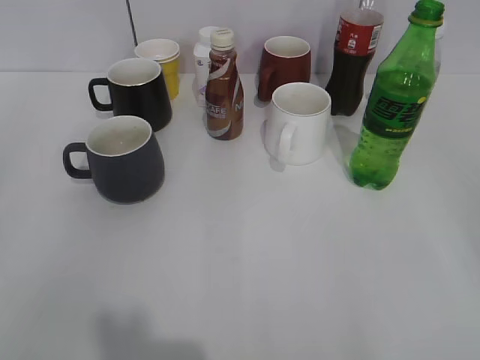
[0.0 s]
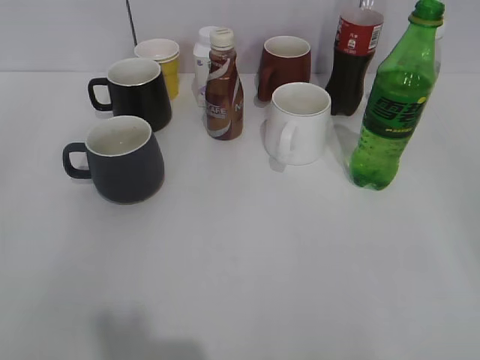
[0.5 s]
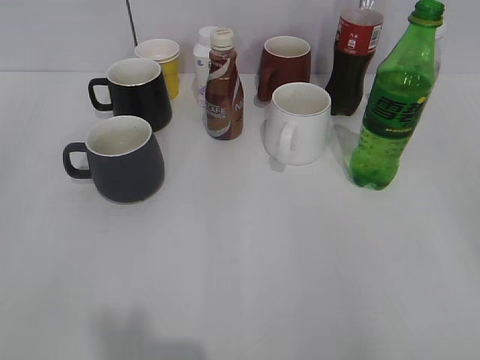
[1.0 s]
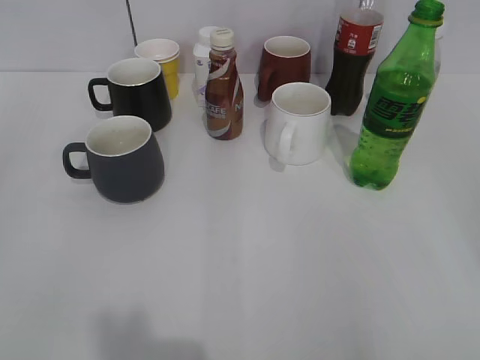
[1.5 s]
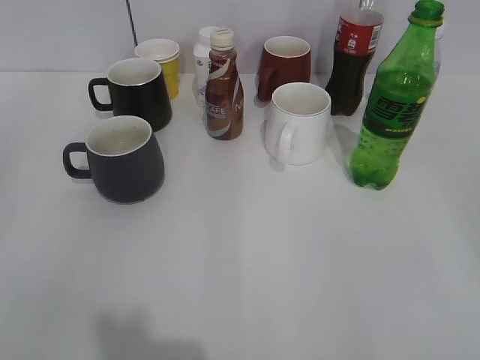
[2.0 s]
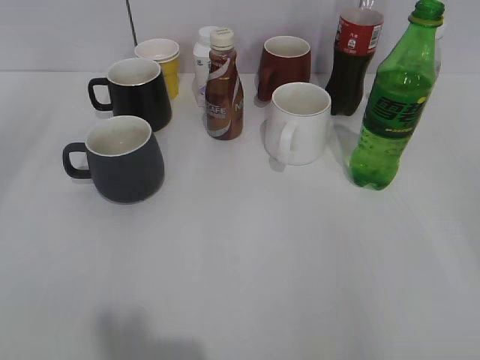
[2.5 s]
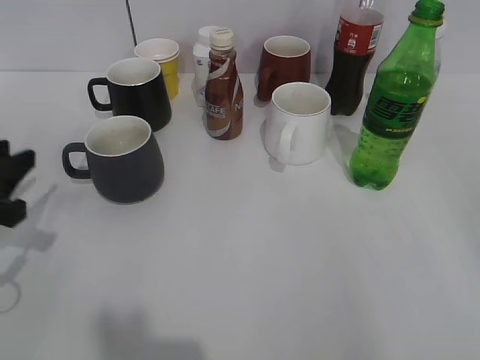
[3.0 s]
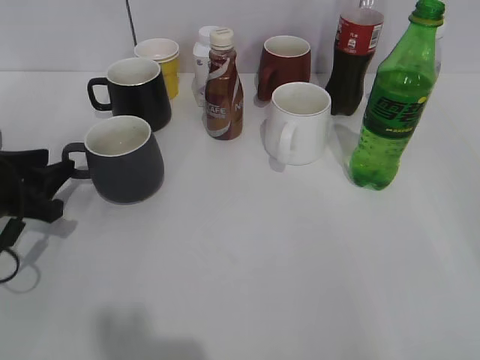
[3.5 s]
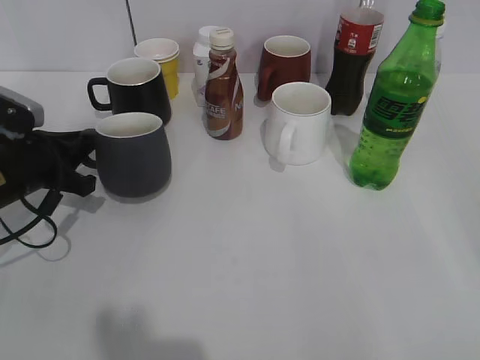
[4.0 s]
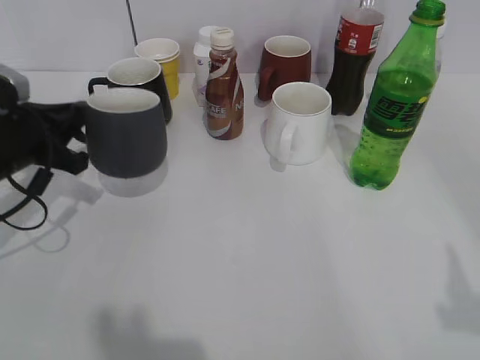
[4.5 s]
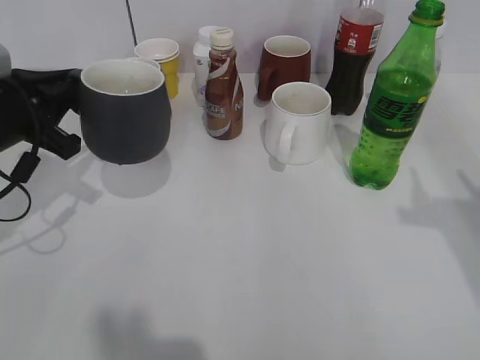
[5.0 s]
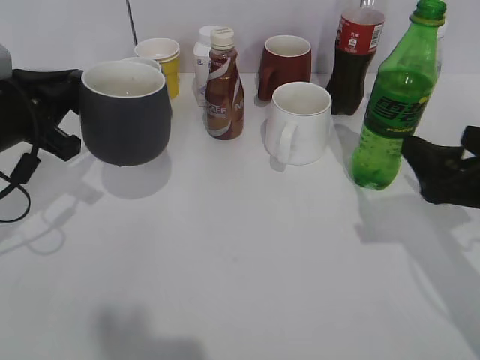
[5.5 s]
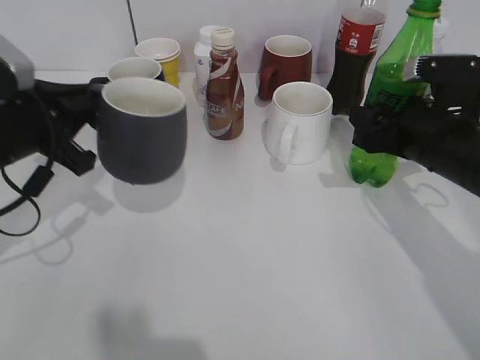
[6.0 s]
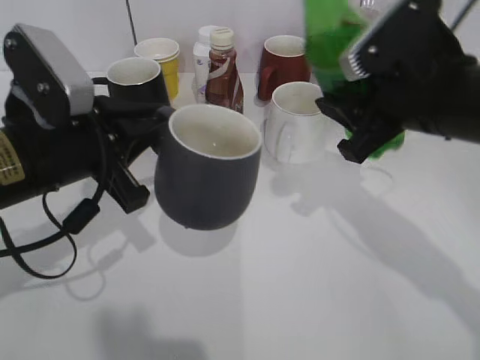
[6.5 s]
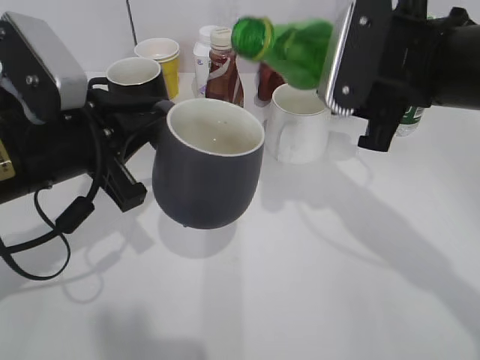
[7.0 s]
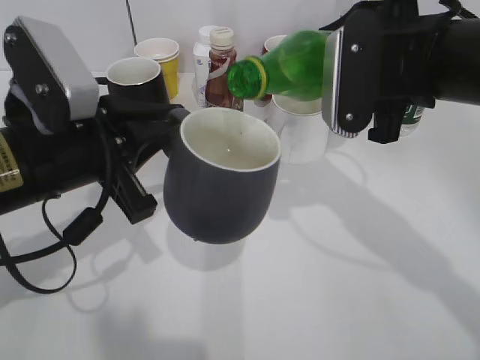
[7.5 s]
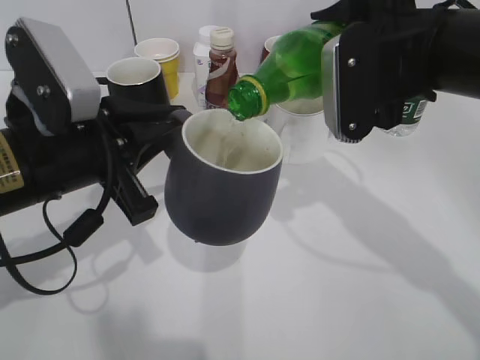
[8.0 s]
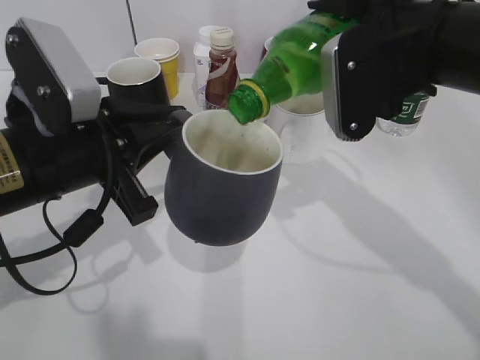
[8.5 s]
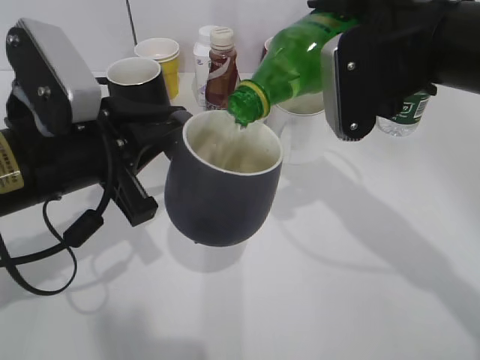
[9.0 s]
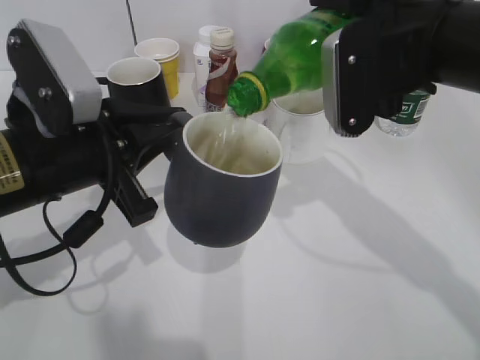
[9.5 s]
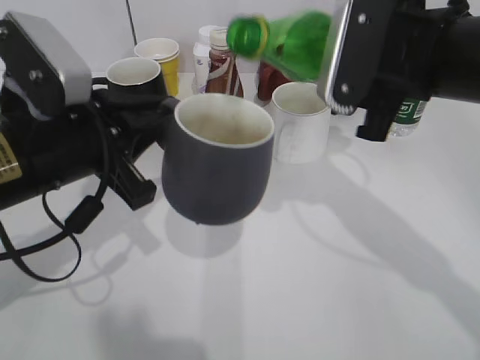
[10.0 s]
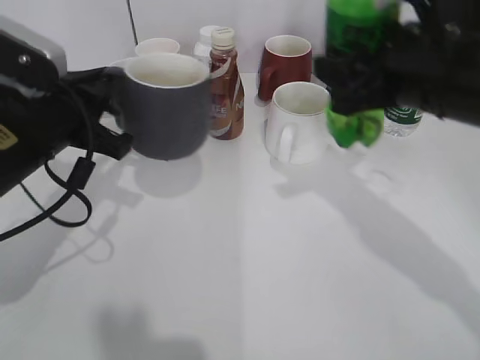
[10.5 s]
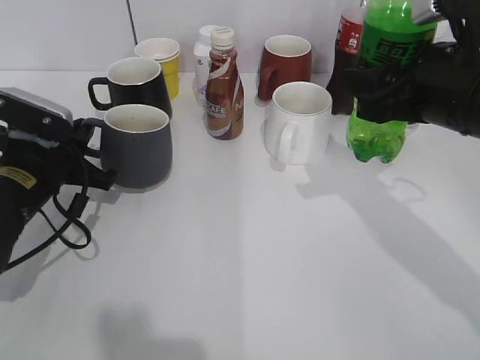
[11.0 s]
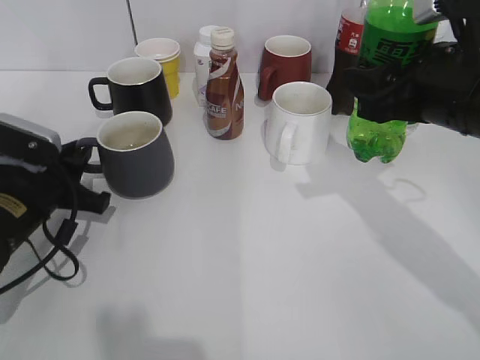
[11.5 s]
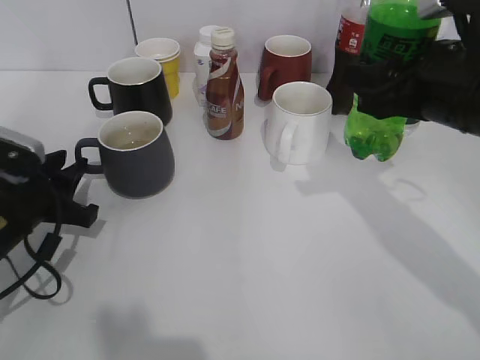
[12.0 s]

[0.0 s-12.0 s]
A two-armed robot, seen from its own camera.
Step, 2.0 to 4.0 s: Grasp the grey cup with left gripper.
Step, 5.5 to 6.0 s: Grasp the bottle with sprite with right gripper.
Step, 6.5 to 10.0 s: Pour the sprite from bottle to cup with right gripper.
Step, 10.5 to 11.5 s: Place the grey cup on the table with left gripper.
2.0 to 4.0 s: The left gripper travels forward and downward by about 35 cm, and closes.
4.0 to 6.0 s: The right gripper moves forward, about 30 cm, and closes up. Meanwhile the left gripper heads upward, covering roughly 5 cm.
6.0 to 8.0 s: The right gripper is displaced upward and to the left by roughly 15 cm; the left gripper shifts roughly 10 cm to the right and backward.
10.0 to 12.0 s: The right gripper ends up roughly 5 cm from where it was; the left gripper travels downward and to the left by some 15 cm, and opens.

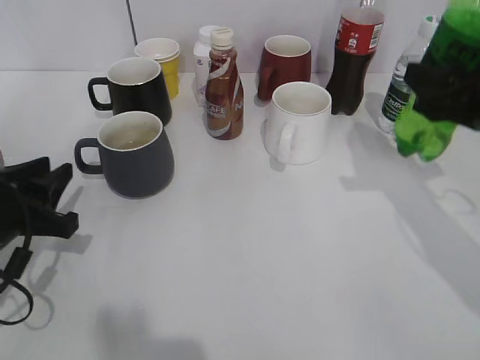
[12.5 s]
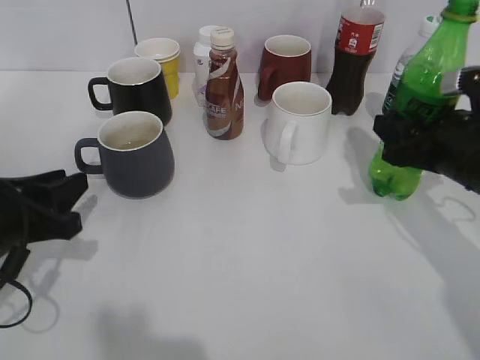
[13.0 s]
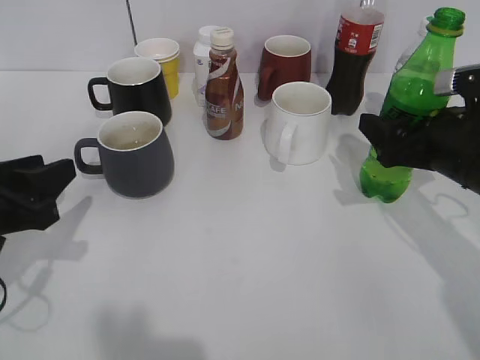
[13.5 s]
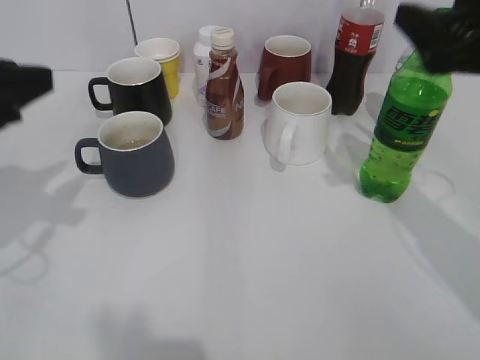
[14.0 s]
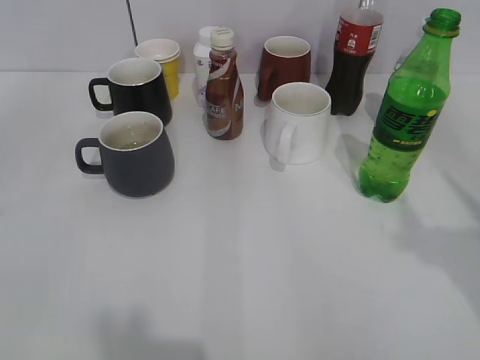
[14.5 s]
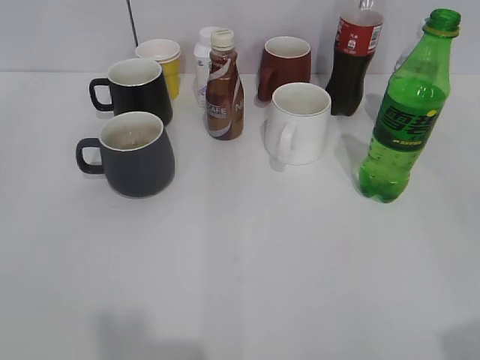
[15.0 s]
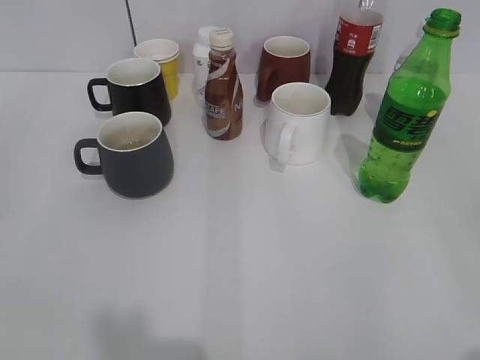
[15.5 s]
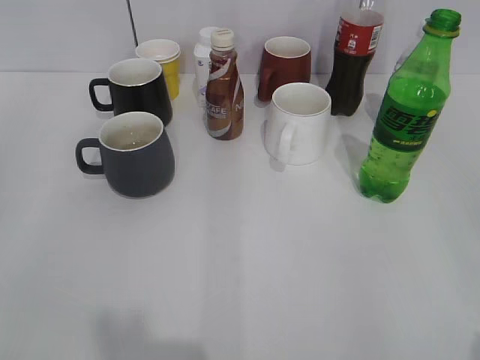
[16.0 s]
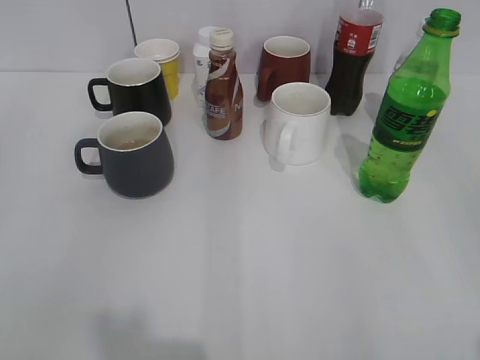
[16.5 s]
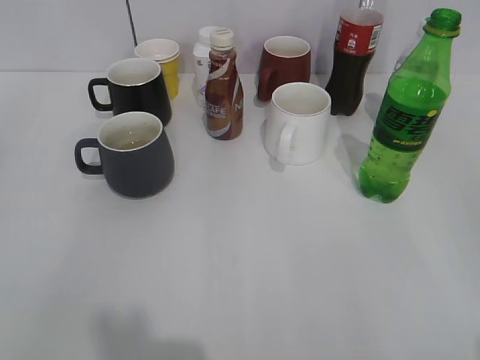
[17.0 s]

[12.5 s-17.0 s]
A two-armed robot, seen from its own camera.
Step, 12.5 to 13.5 s: Place the sprite bottle on the table with right gripper.
12.5 to 14.5 s: The left gripper moves upward and backward, roughly 25 cm, and opens. The right gripper heads backward and upward, covering approximately 25 cm, and opens its fingers.

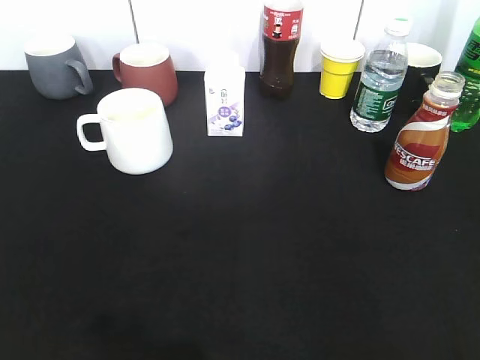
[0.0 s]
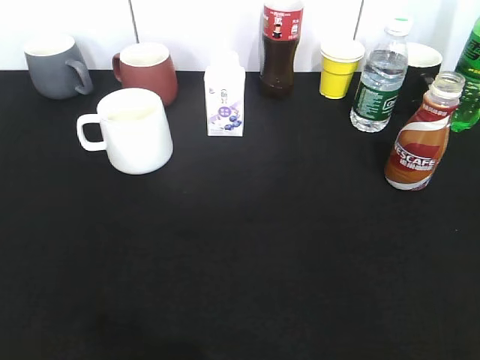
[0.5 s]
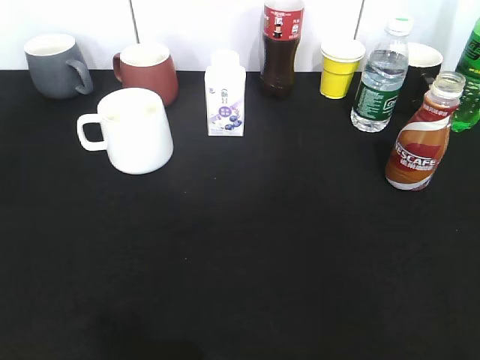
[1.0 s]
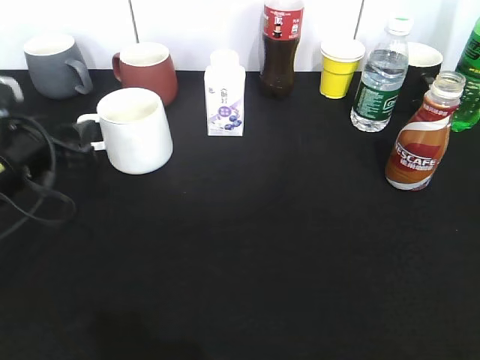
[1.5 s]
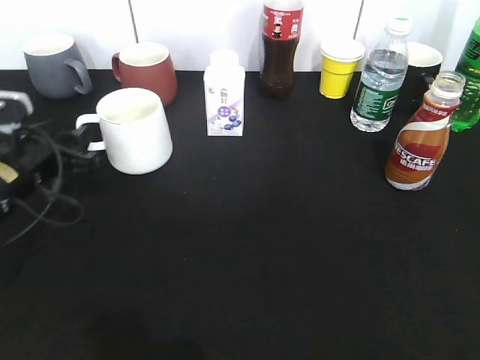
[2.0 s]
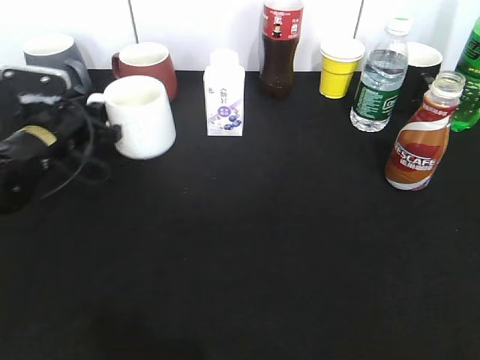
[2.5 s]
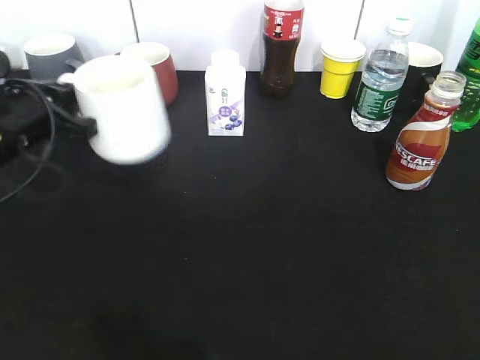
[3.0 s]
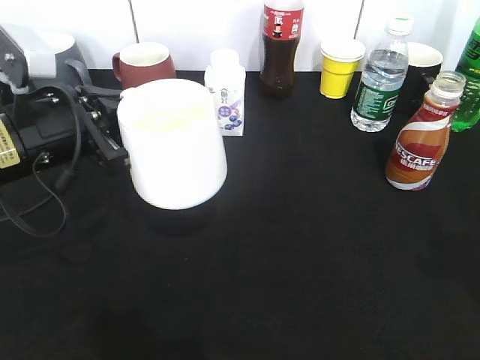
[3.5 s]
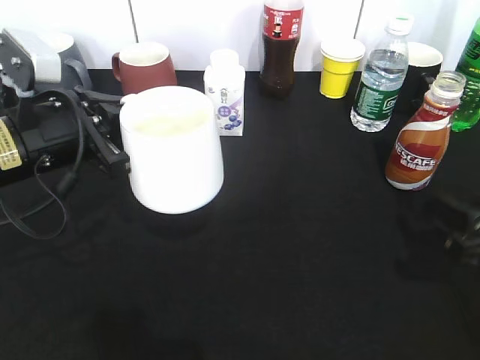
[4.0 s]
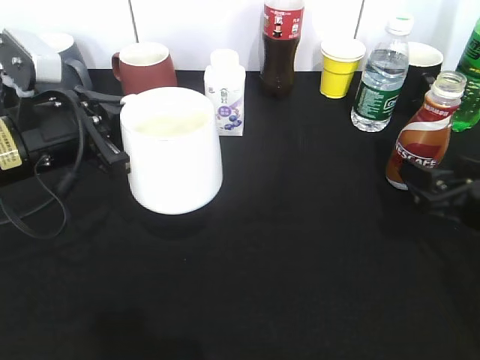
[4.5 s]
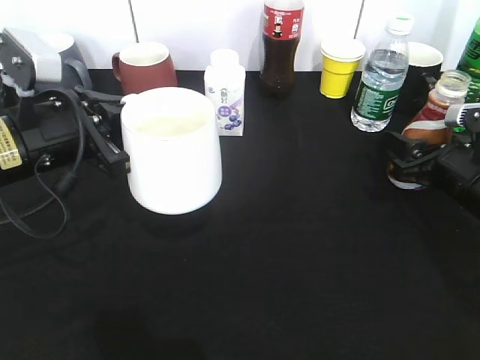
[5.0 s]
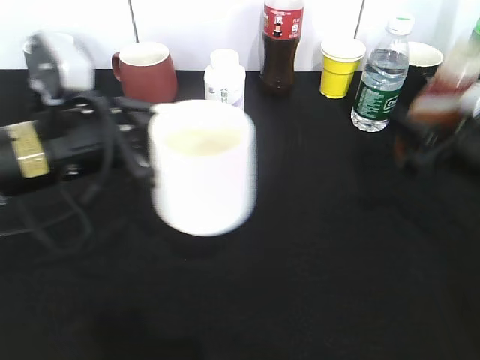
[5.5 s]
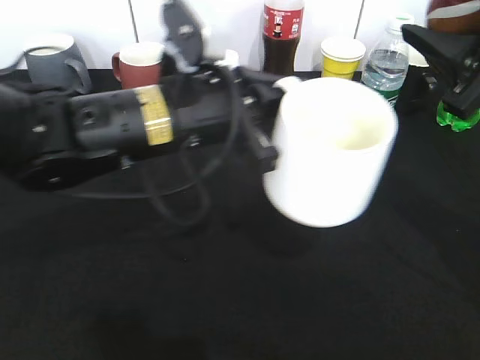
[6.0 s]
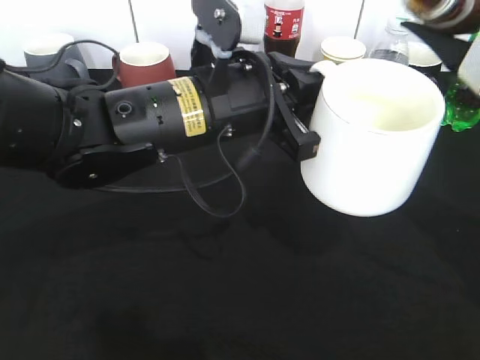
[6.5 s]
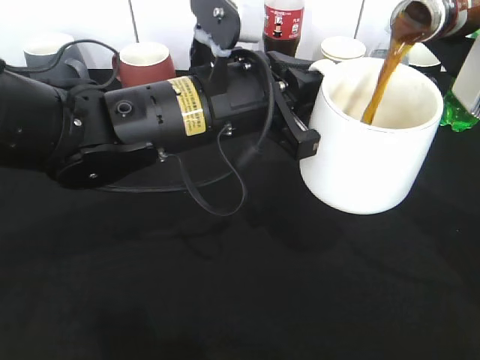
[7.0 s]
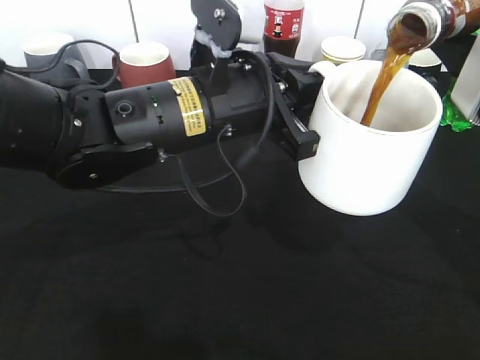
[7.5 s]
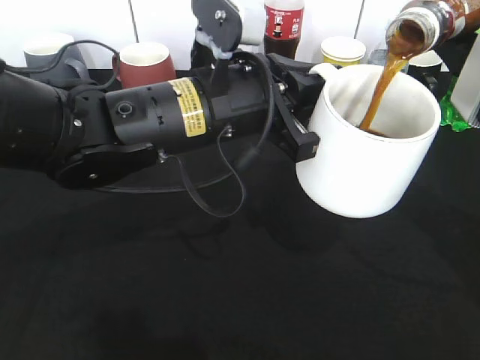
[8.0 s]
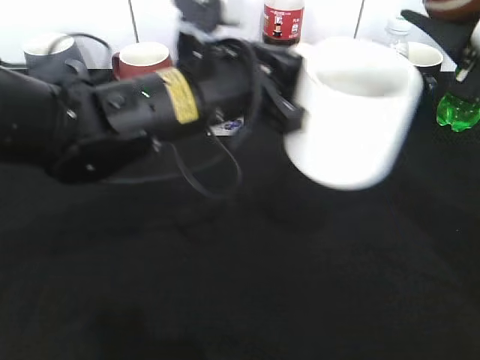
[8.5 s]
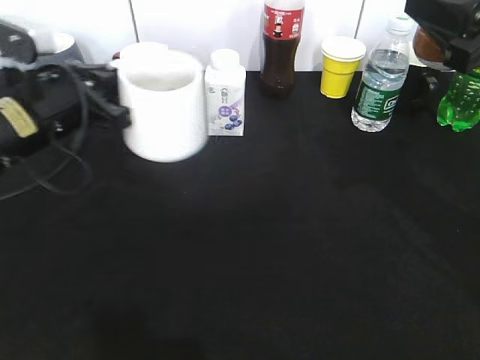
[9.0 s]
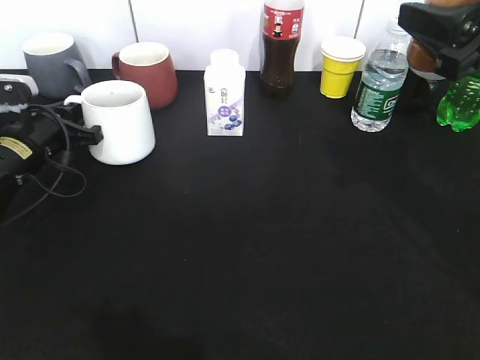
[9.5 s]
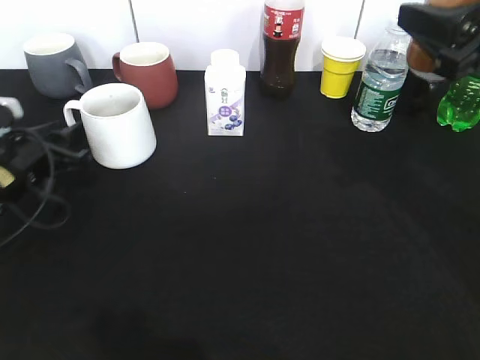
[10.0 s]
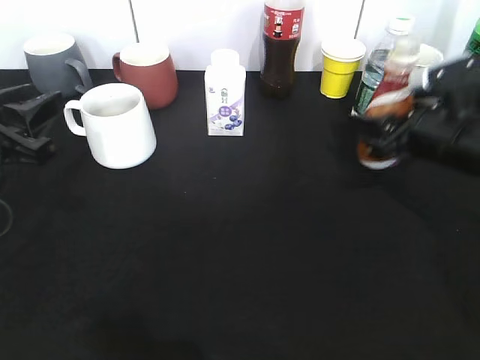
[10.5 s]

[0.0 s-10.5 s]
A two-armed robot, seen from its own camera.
Step, 1.0 to 2.5 s: Grasp the white cup with left gripper.
Step, 3.0 to 3.5 s: Lift the white cup with left gripper.
Step, 4.0 to 5.0 s: Grasp the bottle with coffee with right gripper.
Step, 5.5 to 8.5 s: Pour the coffee from bottle to cup with right gripper.
Step, 9.0 to 10.0 s: Place the white cup on the table with left gripper.
0.0 to 2.0 s: The left gripper heads forward and downward, covering some 35 cm, and opens its fingers.
2.0 to 4.0 s: The right gripper goes about 20 cm forward and downward. Meanwhile the left gripper is displaced upward and to the right by roughly 10 cm, travels forward and back again, some 10 cm each way, and closes its fingers.
4.0 to 6.5 s: The left gripper shifts about 15 cm to the right. The right gripper travels upward and forward by some 20 cm, and opens, then closes once more.
6.5 to 8.5 s: The grippers stay close to where they were, moving slightly.
8.5 to 10.5 s: The right gripper heads downward and forward, covering some 15 cm, while the left gripper moves to the left, some 20 cm, and opens up.
